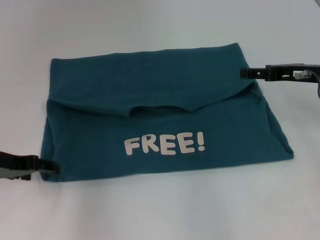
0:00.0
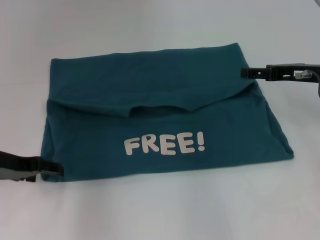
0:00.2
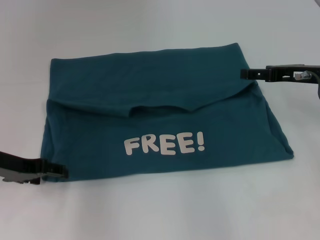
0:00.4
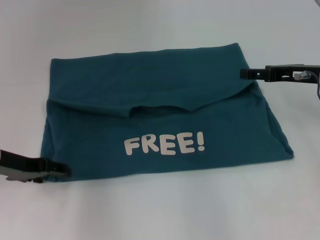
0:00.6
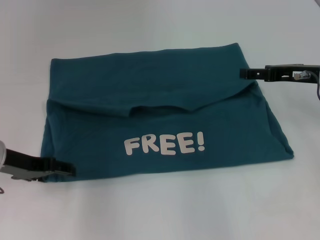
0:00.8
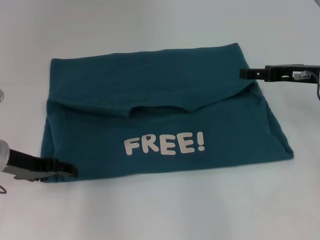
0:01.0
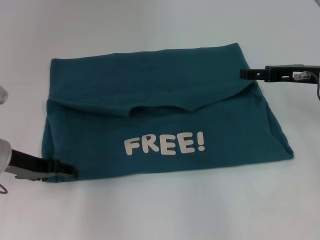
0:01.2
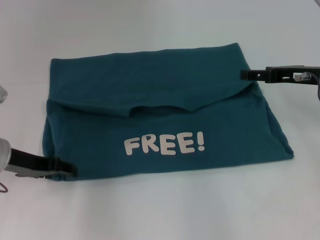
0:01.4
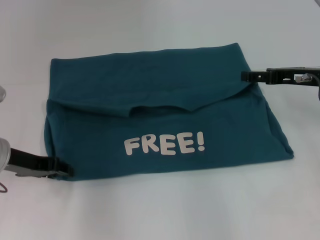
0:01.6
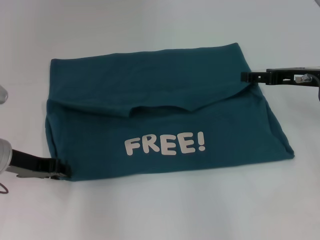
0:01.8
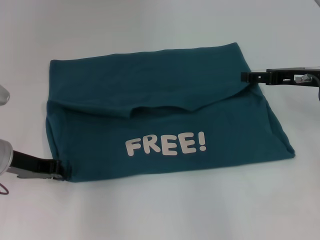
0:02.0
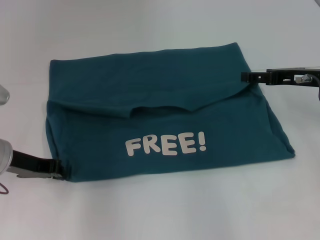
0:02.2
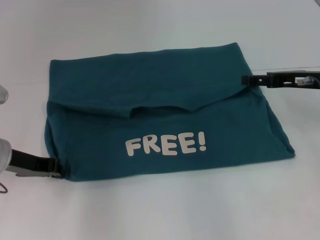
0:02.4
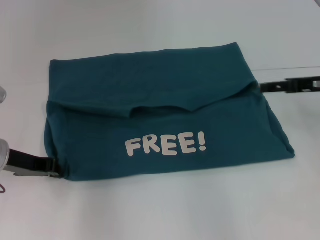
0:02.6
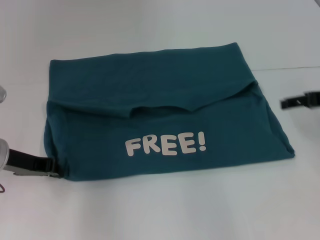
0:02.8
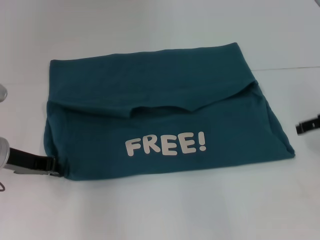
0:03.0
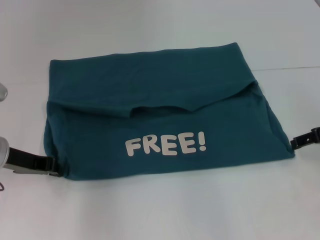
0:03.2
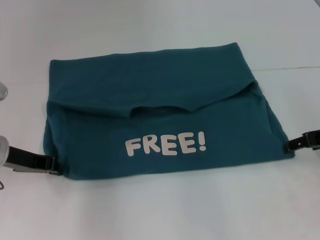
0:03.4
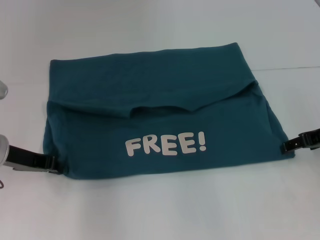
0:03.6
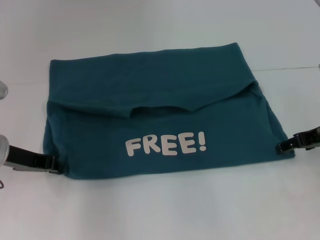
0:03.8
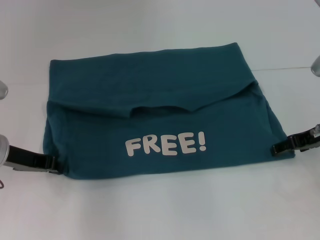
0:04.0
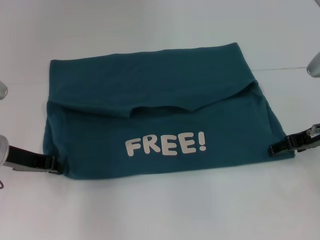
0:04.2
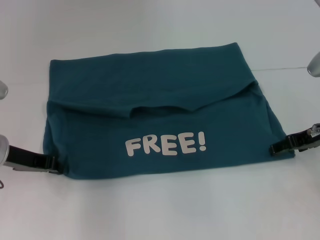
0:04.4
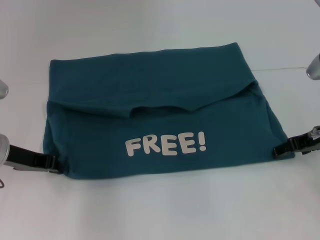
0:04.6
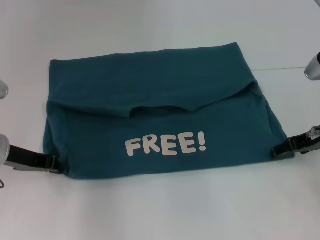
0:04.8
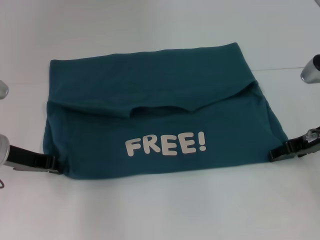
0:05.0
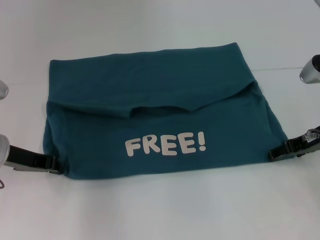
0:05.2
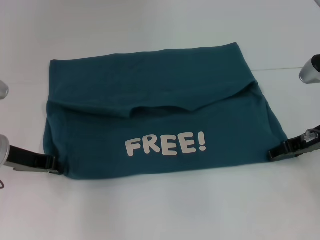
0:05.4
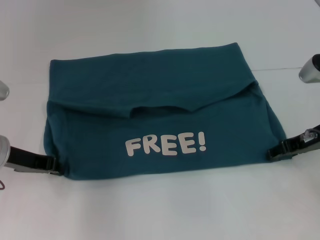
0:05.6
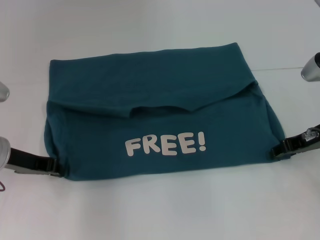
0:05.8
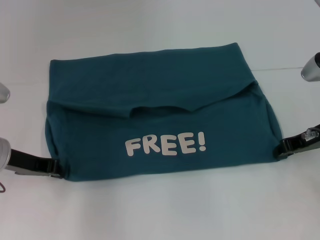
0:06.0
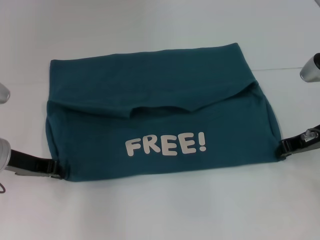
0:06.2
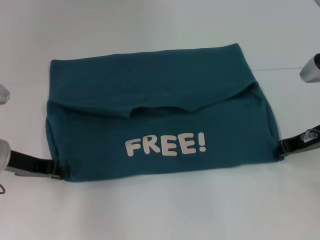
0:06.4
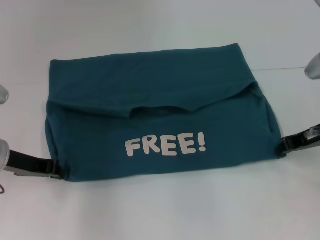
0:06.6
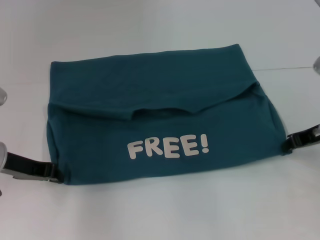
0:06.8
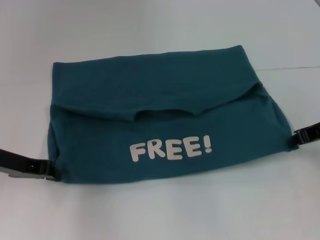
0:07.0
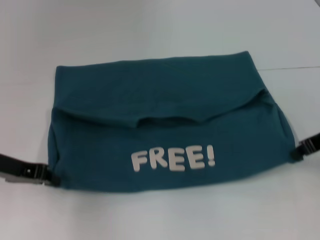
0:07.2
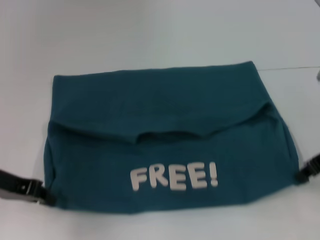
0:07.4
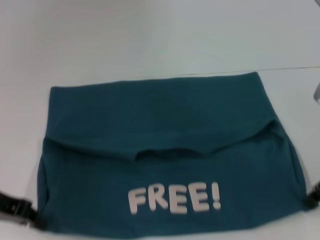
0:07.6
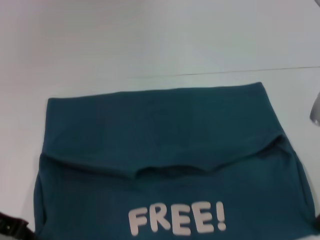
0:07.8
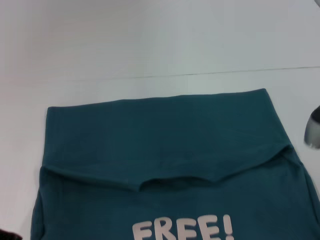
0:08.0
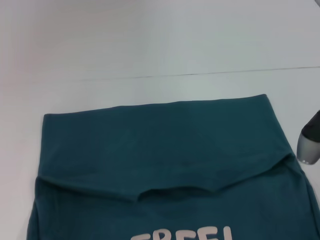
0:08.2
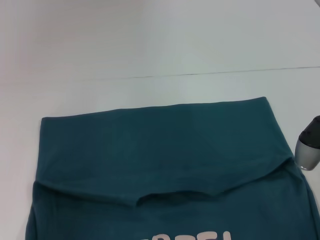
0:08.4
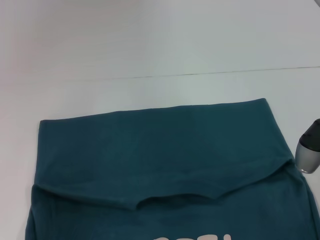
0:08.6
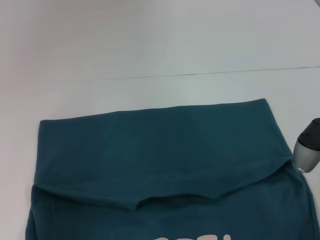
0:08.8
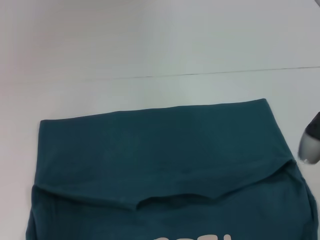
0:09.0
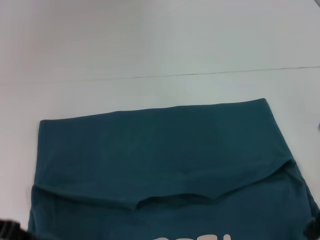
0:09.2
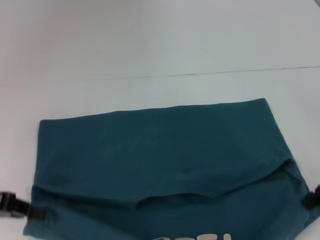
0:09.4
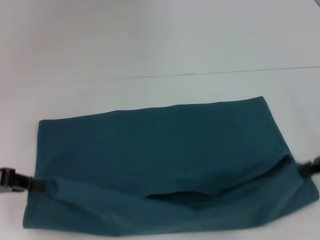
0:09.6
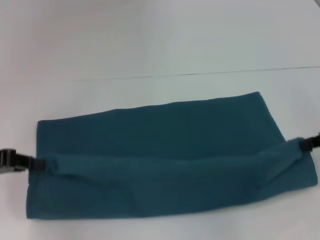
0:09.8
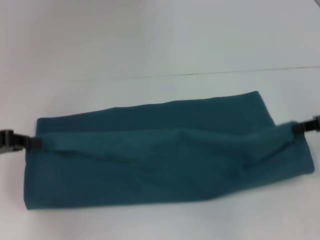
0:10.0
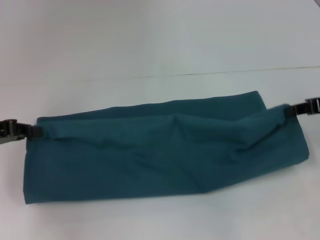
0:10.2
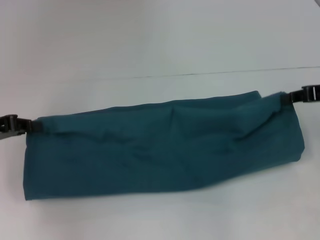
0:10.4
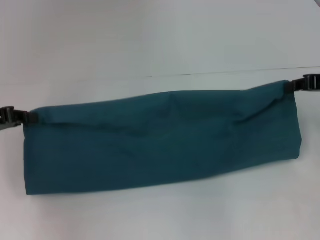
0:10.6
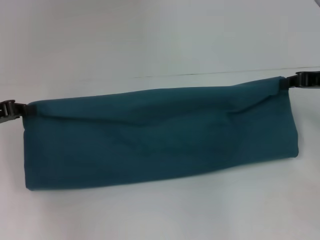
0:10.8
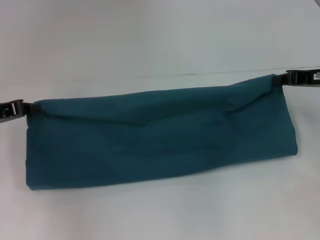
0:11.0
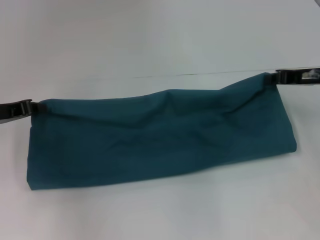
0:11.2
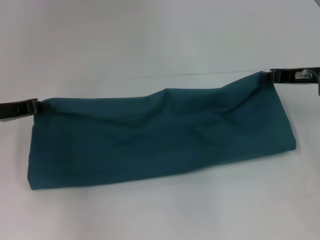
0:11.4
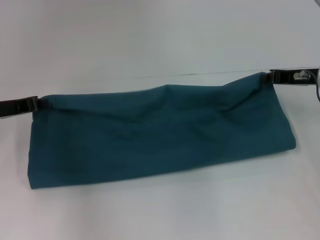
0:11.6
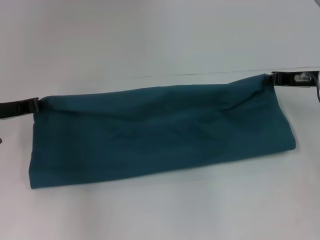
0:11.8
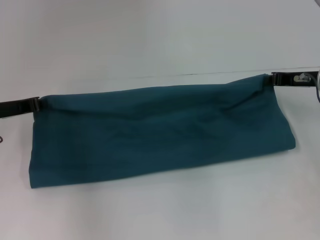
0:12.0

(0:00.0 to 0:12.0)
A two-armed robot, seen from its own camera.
Step, 0:00.0 - 0:08.8: Pull the clothes with your left hand.
Step, 0:00.0 - 0:08.8: Pull the clothes with your right hand.
0:00.0 - 0:01.6: There are only small adjustments of the grippers.
0:01.6 - 0:03.0: The right gripper moves to the right, some 5 cm. The left gripper closes.
0:03.0 - 0:04.4: The right gripper shifts by roughly 5 cm.
0:04.4 - 0:06.0: The right gripper closes up.
0:06.0 - 0:07.6: The left gripper ends up roughly 5 cm from where it was; the right gripper heads backward, covering roughly 5 cm, and closes its fingers.
0:09.0 - 0:10.4: The left gripper heads forward, covering about 5 cm. The right gripper is displaced forward and to the right by some 10 cm.
0:10.4 - 0:12.0: The right gripper goes approximately 5 cm forward and downward. Meanwhile the left gripper shifts by approximately 5 cm.

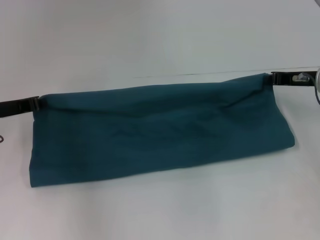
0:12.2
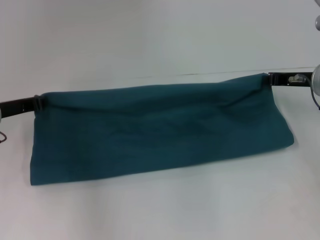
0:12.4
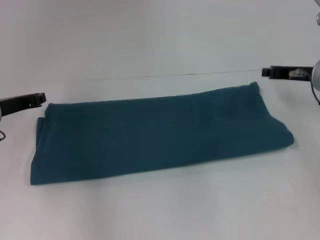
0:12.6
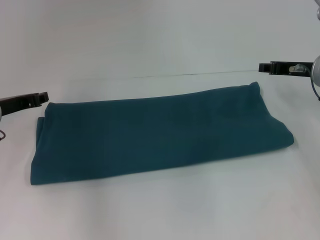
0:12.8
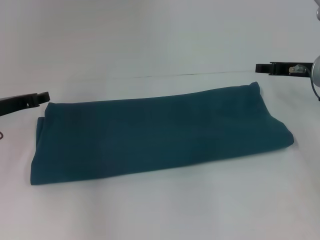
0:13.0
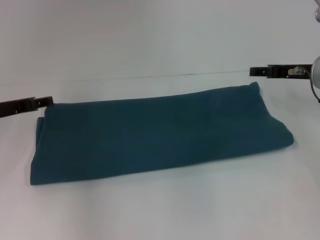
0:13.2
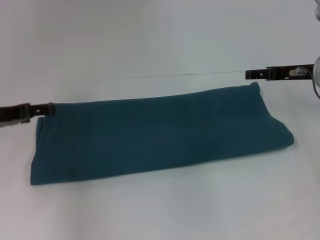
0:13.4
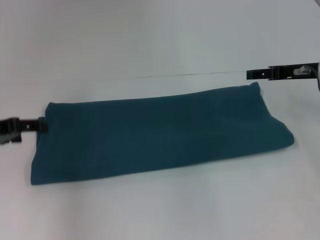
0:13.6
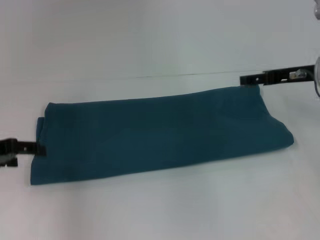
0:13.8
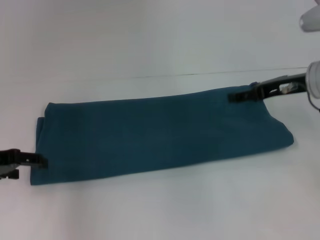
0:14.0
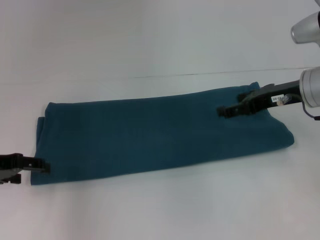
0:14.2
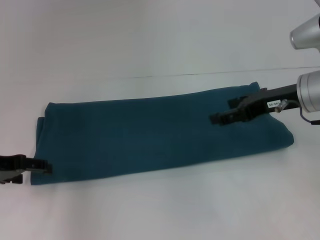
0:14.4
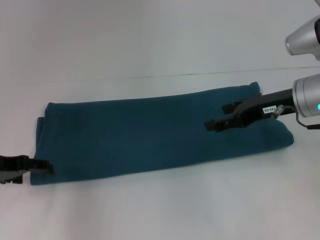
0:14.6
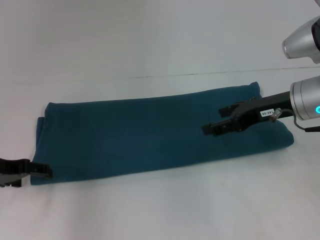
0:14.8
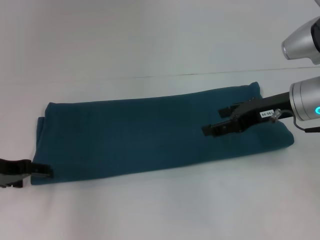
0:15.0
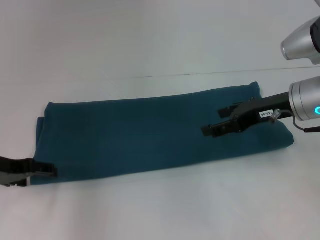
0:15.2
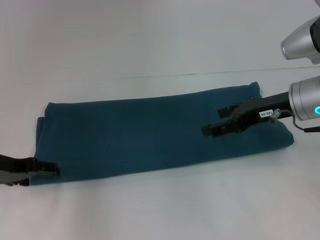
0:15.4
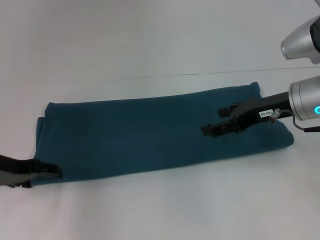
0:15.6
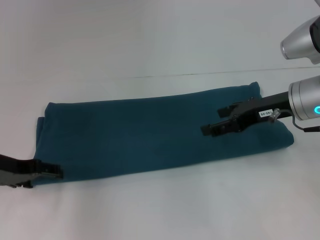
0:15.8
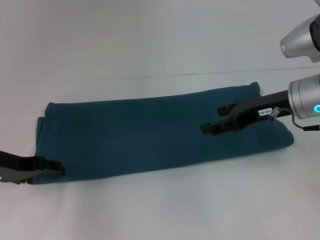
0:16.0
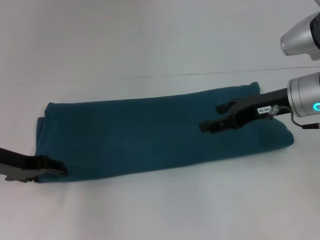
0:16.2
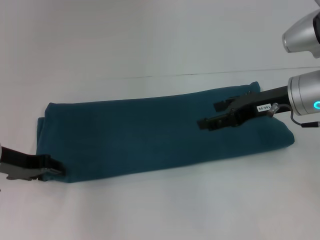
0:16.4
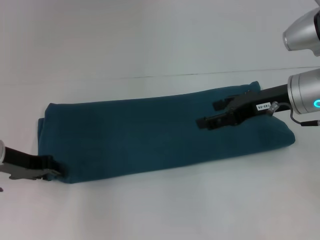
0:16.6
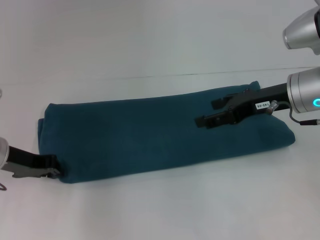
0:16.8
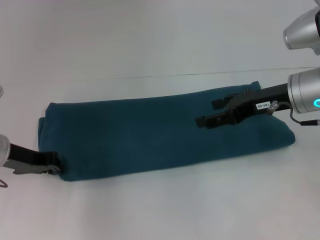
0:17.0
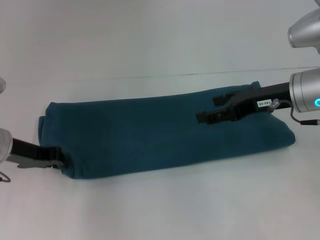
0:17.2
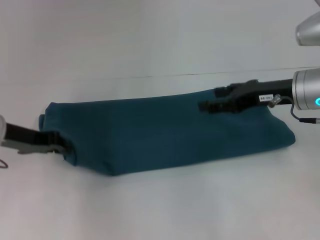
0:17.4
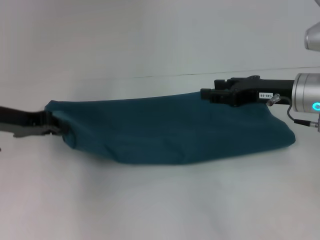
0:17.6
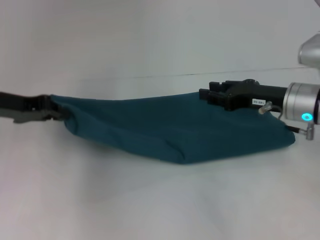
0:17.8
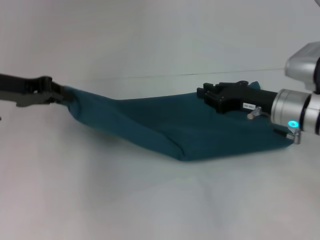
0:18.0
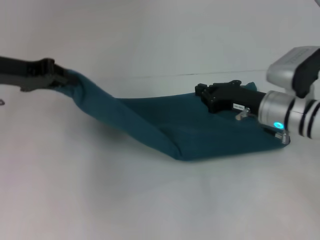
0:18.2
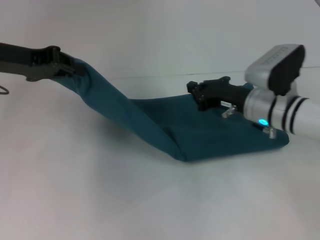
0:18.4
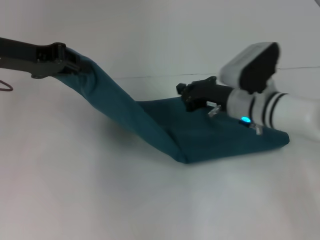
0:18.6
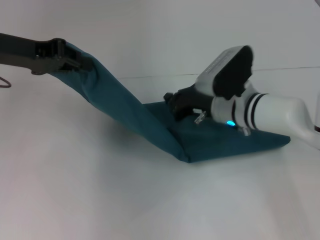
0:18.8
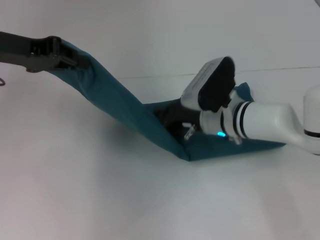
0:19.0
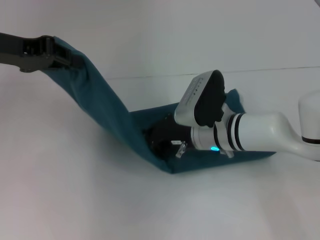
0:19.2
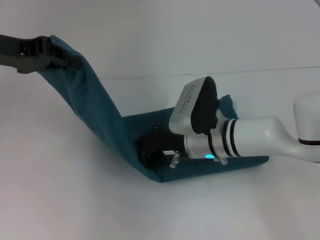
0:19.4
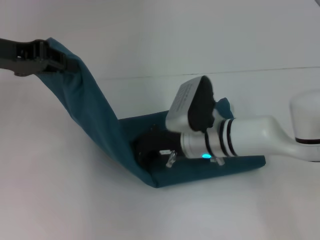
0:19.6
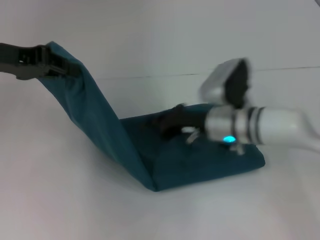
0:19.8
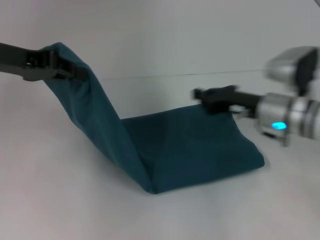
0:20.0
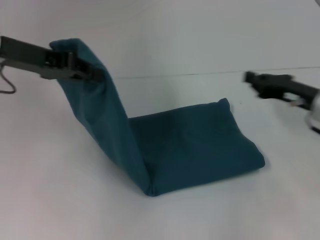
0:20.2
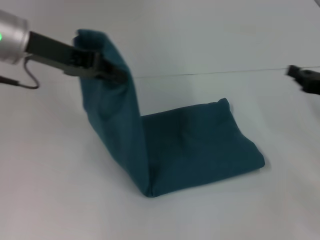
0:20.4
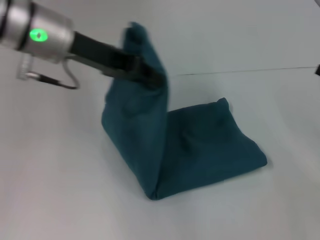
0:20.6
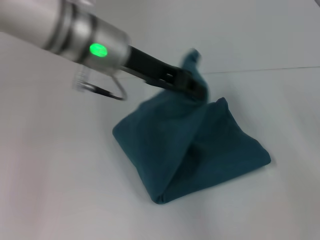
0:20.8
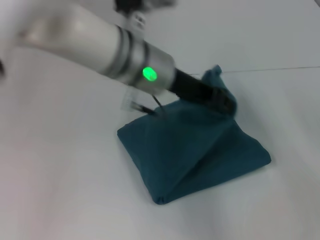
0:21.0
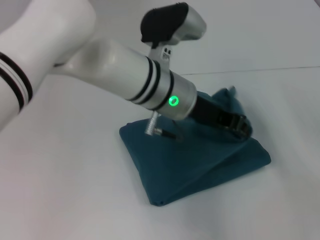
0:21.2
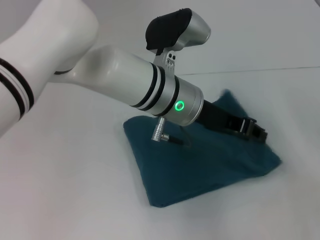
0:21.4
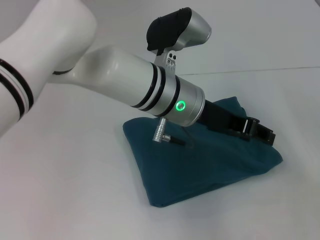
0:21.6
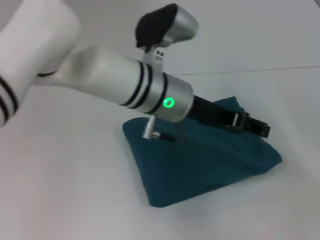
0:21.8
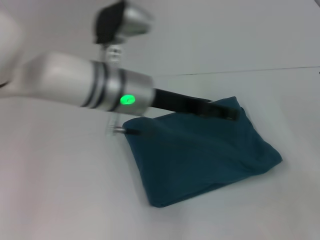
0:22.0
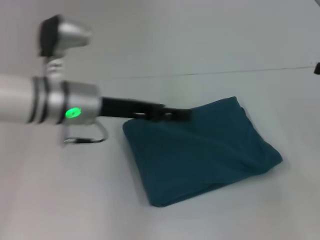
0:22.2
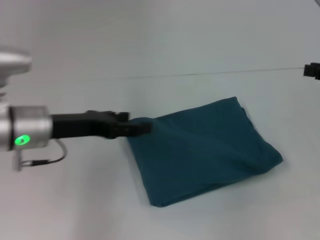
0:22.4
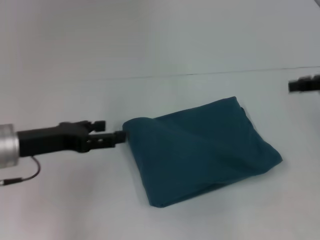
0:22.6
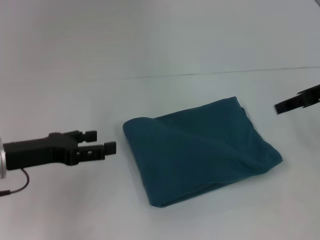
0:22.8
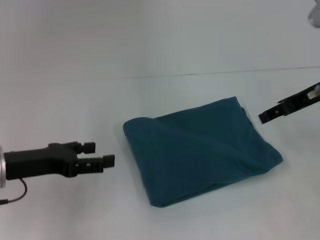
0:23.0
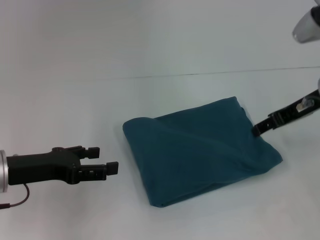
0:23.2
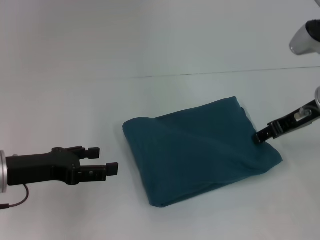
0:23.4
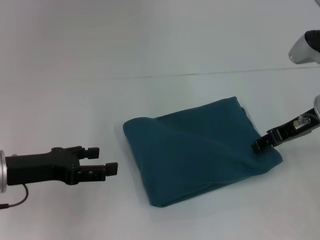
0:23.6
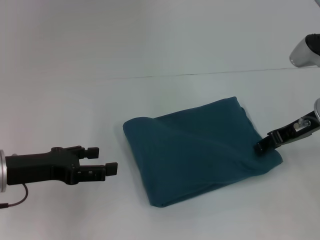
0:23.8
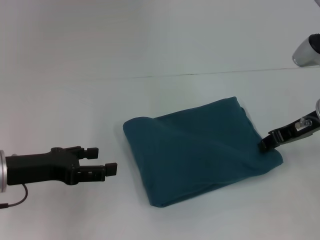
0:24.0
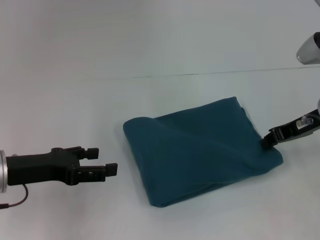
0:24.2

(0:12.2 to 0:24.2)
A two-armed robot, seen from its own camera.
Step, 0:13.0 - 0:19.6: Press the middle of the clothes with your right hand.
Step, 0:19.8 - 0:21.4: Fold the clothes to the left.
0:12.2 - 0:13.8: The right gripper opens up. Meanwhile the left gripper shifts by about 5 cm, and opens up.
0:13.8 - 0:15.2: The right gripper ends up roughly 5 cm from where it was.
0:15.2 - 0:16.6: The left gripper closes up.
0:16.6 - 0:18.2: The left gripper is displaced upward by roughly 10 cm, and closes its fingers; the right gripper goes approximately 10 cm downward, and closes.
0:18.2 - 0:19.8: The right gripper travels to the left by about 10 cm.
0:19.8 - 0:21.2: The grippers both shift to the right by some 25 cm.
0:21.2 - 0:22.6: The right gripper travels upward and to the left by some 15 cm. Meanwhile the left gripper travels to the left by about 25 cm, and opens its fingers.
0:22.6 - 0:24.2: The right gripper heads downward and to the left, covering approximately 10 cm, and opens and closes again.
